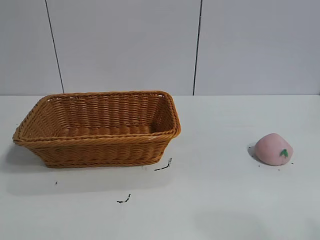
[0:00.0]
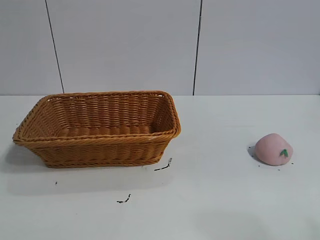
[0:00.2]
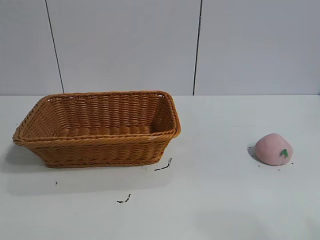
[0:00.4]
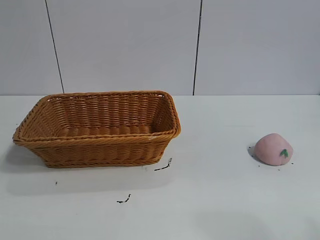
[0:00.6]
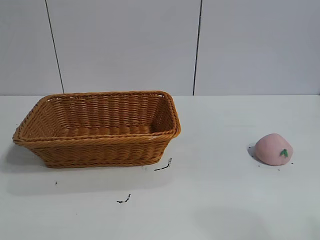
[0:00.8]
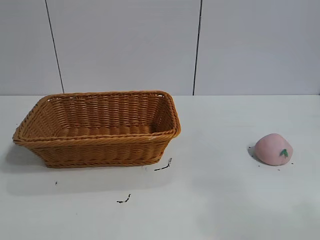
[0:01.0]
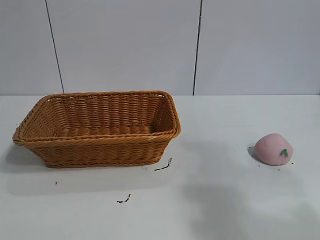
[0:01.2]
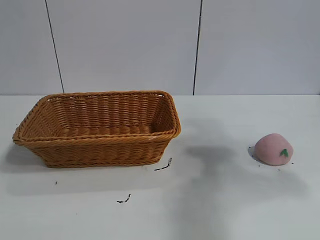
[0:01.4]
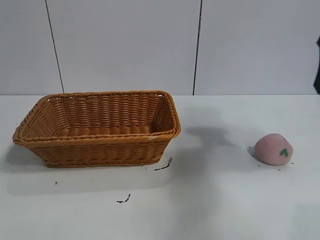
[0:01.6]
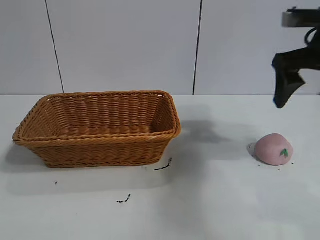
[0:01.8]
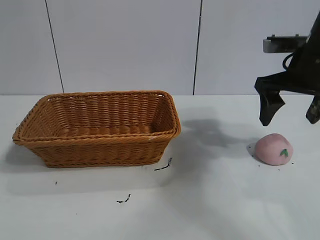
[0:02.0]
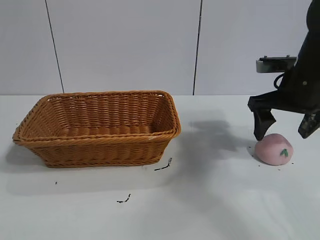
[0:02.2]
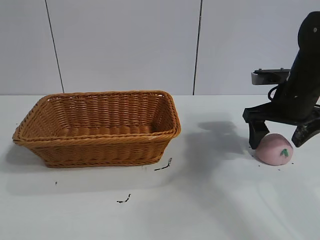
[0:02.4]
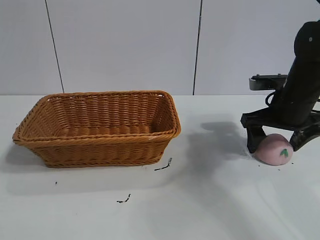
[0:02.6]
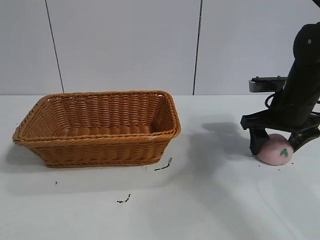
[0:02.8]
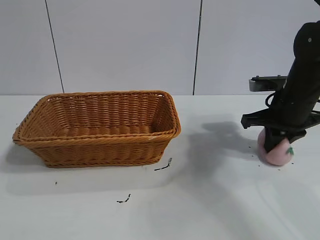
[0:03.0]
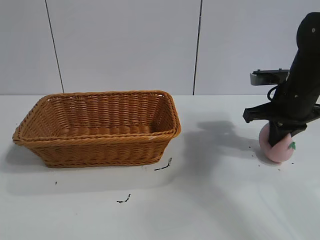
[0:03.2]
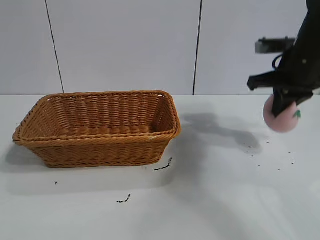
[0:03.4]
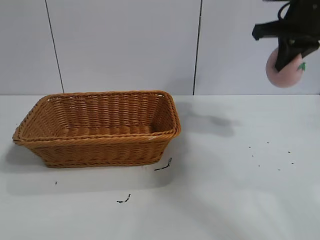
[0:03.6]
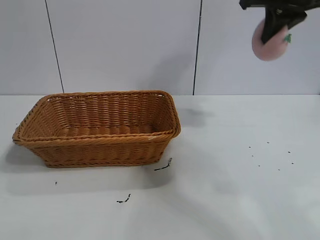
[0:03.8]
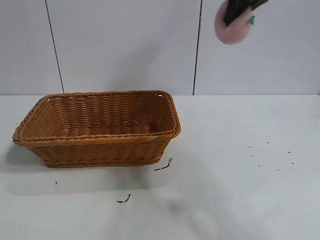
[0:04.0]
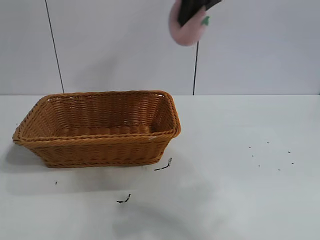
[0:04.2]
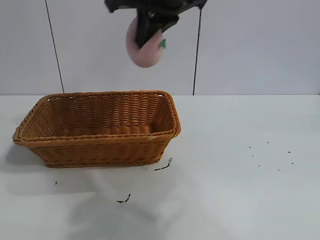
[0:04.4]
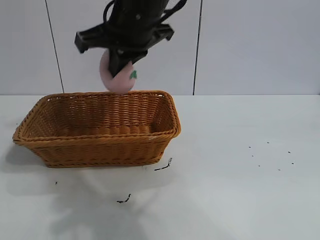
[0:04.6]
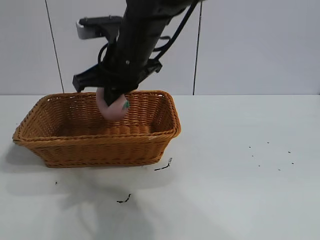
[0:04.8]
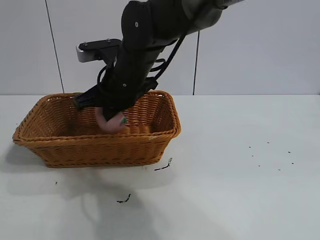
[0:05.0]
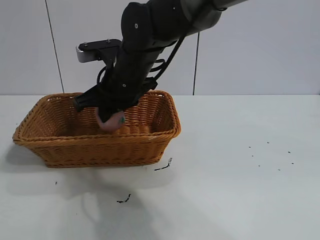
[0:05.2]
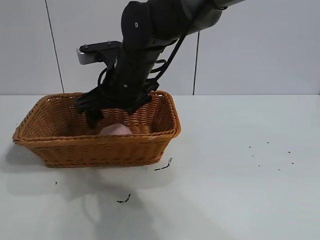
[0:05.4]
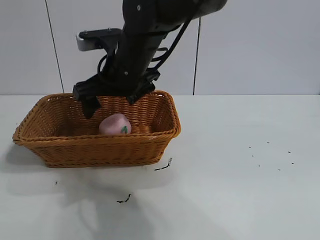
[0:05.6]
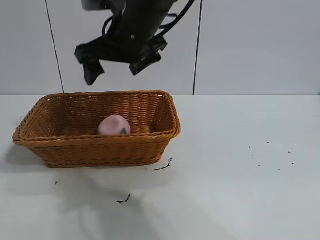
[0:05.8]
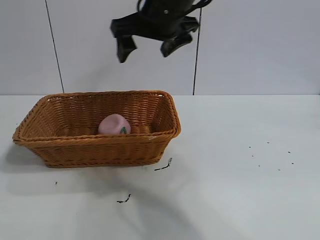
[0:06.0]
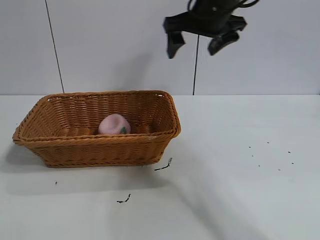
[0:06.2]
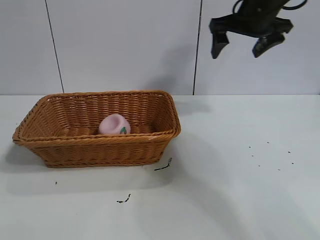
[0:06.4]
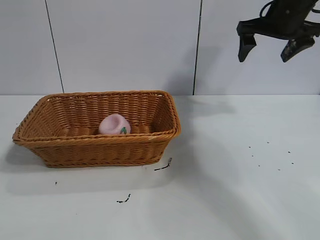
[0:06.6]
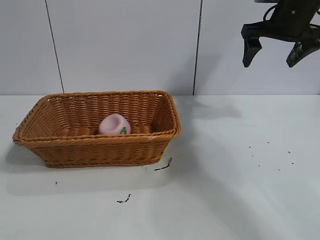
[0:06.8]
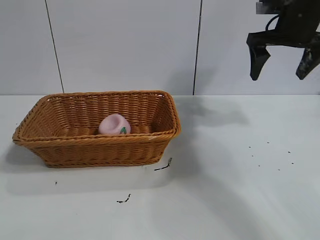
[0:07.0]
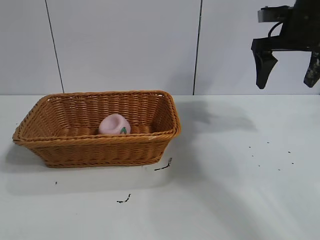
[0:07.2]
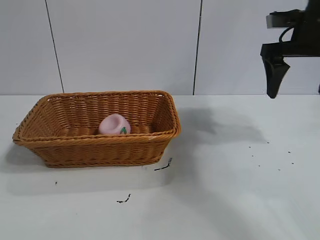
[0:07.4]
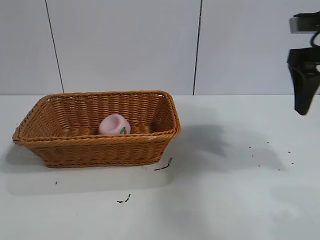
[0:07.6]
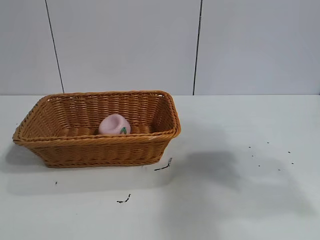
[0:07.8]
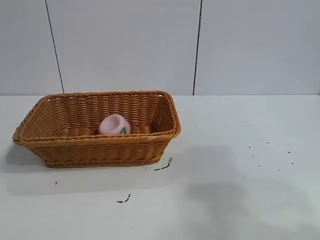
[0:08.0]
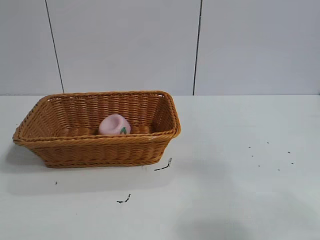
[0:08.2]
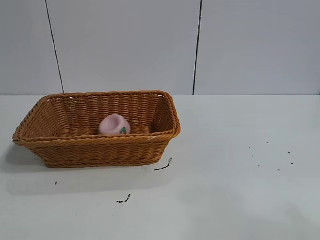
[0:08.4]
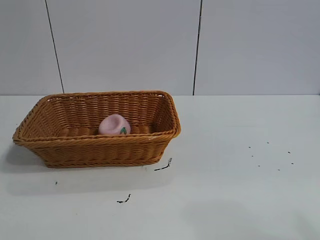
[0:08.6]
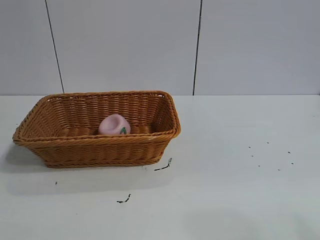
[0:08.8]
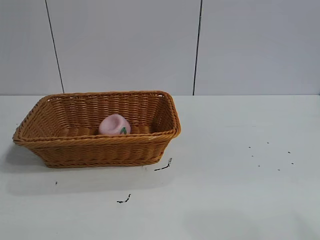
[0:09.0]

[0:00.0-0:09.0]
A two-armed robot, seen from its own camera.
Task of the whole recording: pick up the peach and put it into the basket.
Step, 0:00.8 to 0:03.0: Grasp the peach with right gripper.
Step, 0:03.4 to 0:05.6: Place the peach in the basket with right gripper.

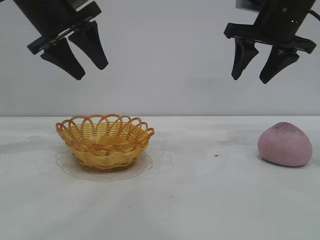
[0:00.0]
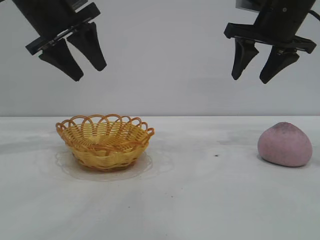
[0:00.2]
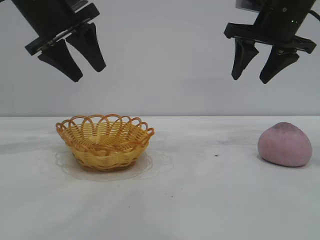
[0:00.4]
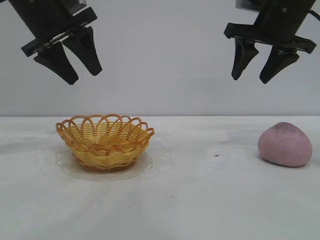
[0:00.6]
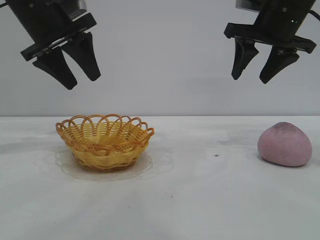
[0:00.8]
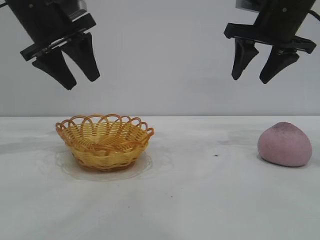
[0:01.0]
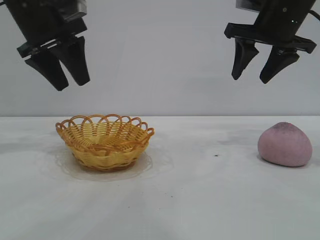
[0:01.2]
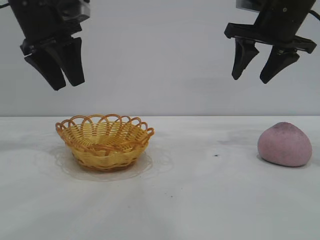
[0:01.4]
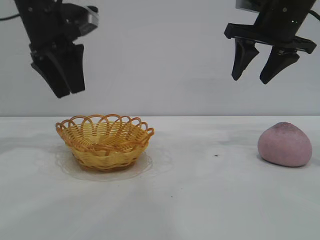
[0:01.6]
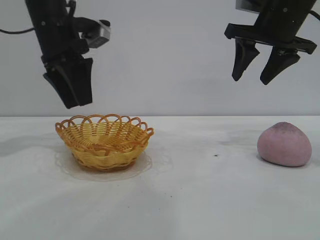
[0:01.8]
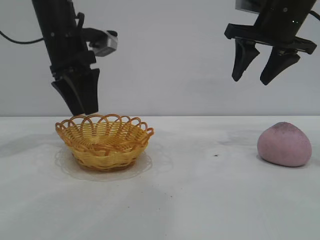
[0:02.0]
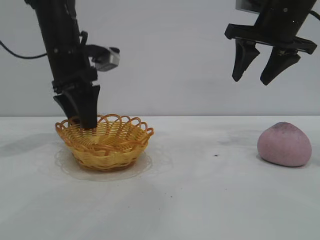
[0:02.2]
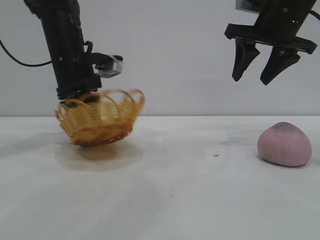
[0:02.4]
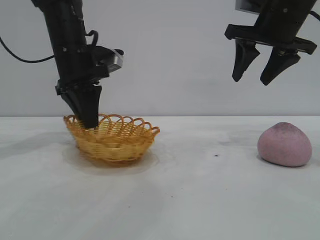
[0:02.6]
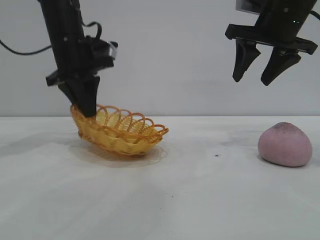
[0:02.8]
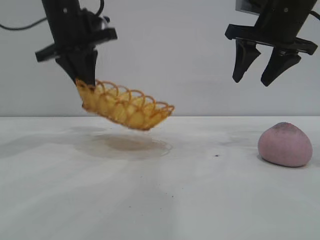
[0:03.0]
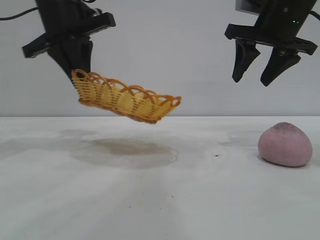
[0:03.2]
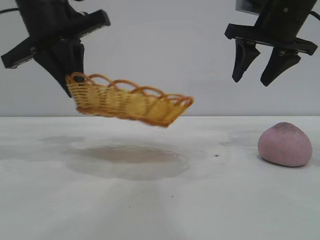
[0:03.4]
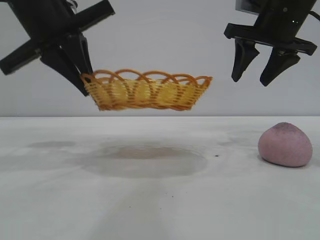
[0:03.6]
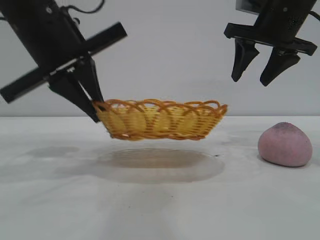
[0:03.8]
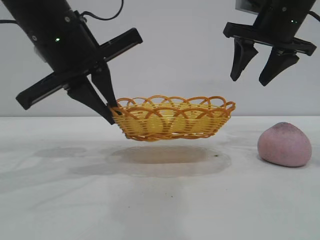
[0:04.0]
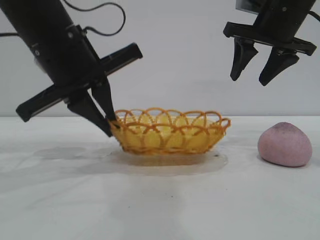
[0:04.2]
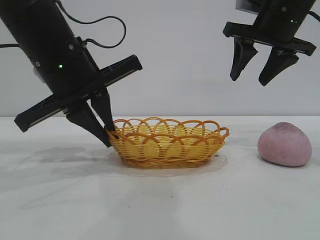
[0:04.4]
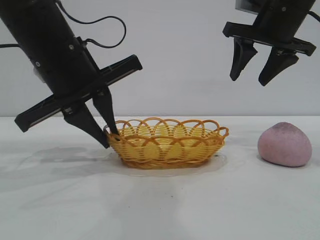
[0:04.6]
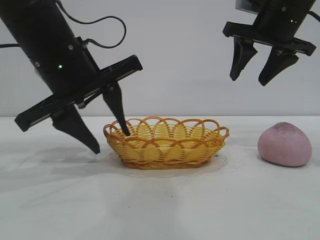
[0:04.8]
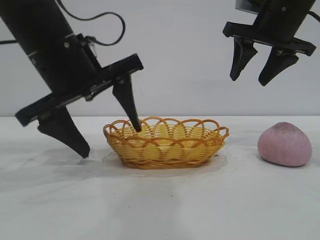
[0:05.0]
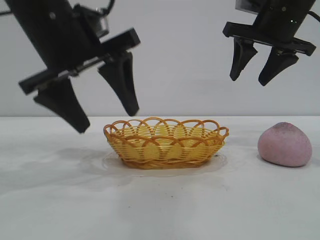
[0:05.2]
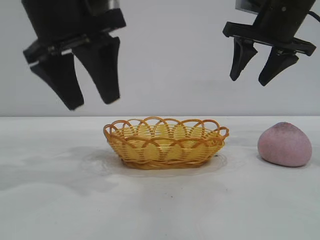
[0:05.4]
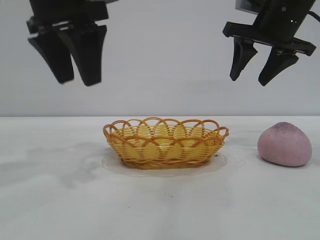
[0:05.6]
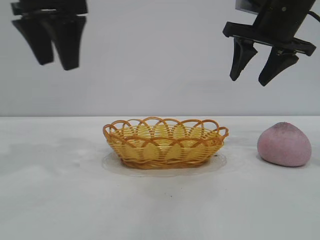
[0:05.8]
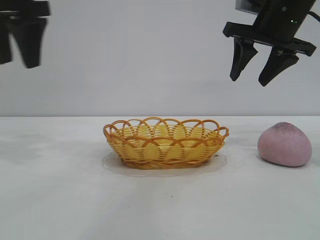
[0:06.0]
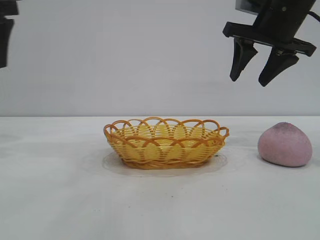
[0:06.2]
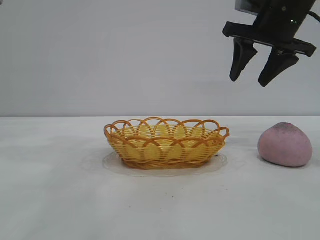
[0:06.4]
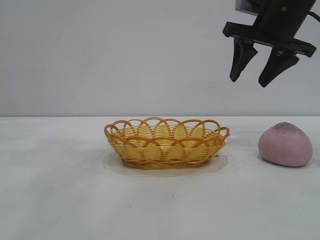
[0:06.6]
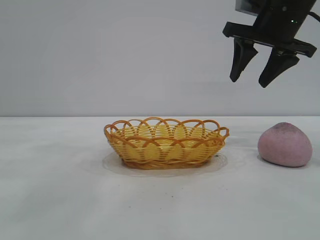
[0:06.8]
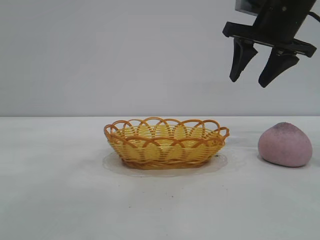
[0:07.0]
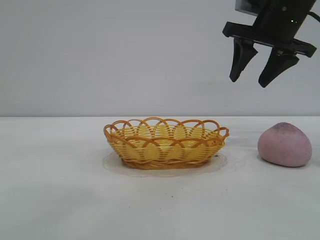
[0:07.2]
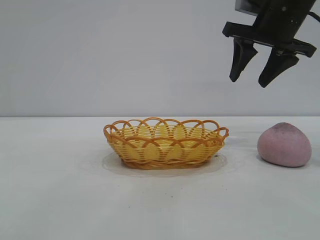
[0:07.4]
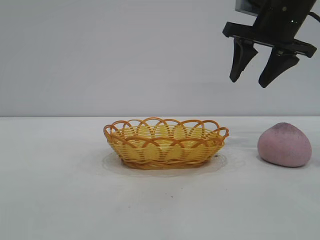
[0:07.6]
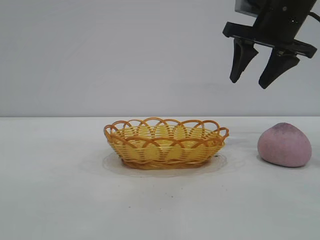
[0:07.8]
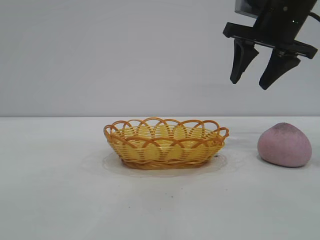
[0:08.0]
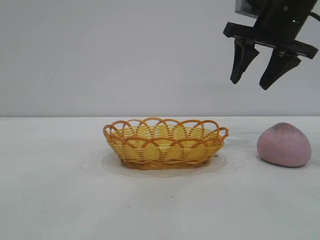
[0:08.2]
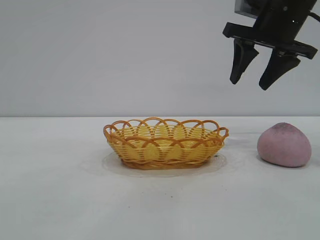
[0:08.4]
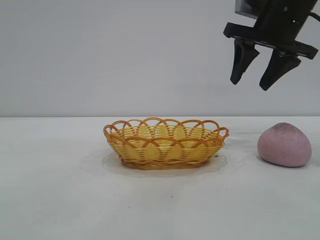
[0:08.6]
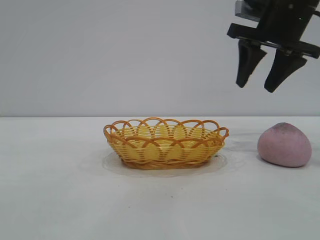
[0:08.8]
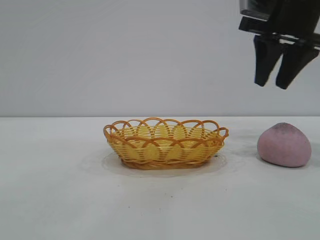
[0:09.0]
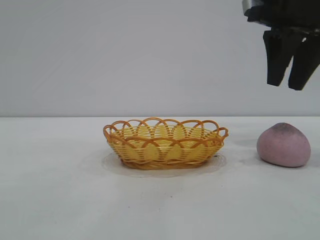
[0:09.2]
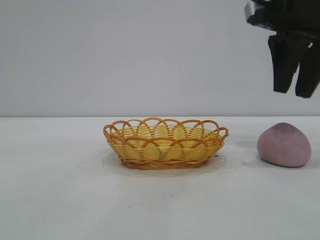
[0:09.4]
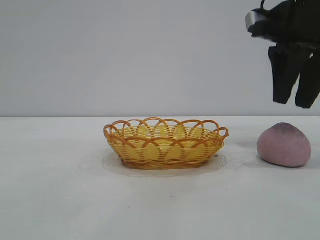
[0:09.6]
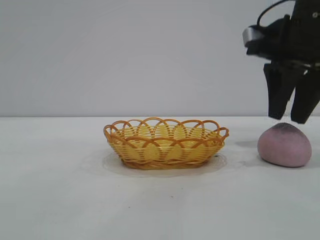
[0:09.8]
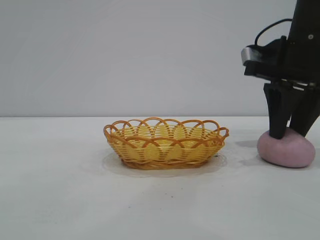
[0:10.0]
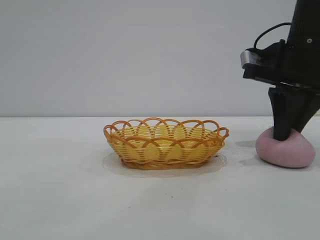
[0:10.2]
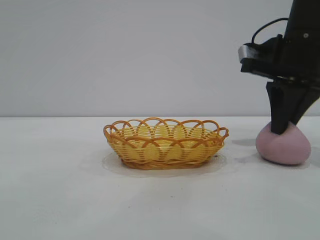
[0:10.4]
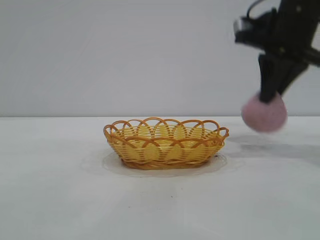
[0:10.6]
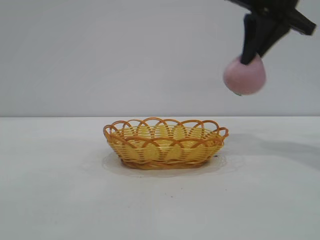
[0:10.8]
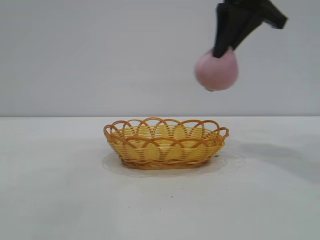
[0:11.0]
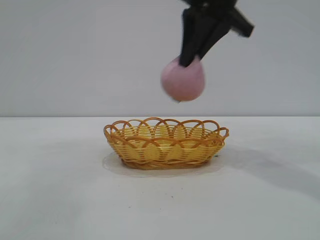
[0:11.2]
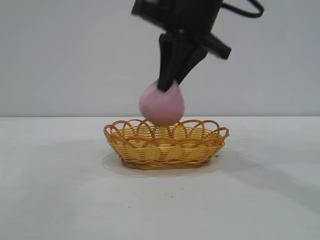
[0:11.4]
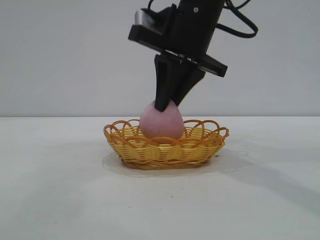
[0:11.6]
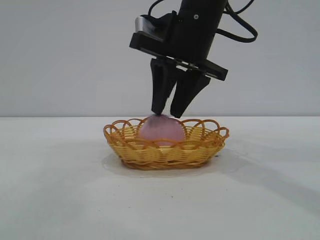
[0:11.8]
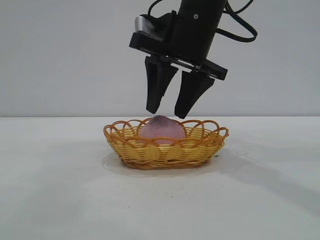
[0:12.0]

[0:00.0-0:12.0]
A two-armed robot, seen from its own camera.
Task of the whole recording: pick up the peach and put it into the basket.
Step, 0:00.0 to 0:05.6: Move the basket to the center of view.
Step, 0:06.0 to 0:10.6: Pick up the peach.
